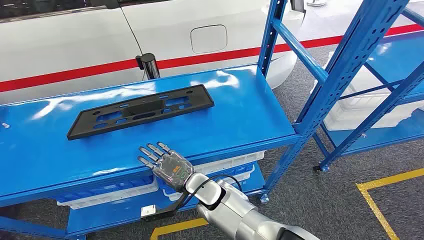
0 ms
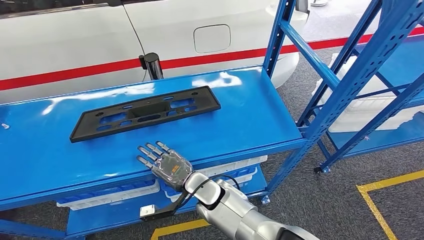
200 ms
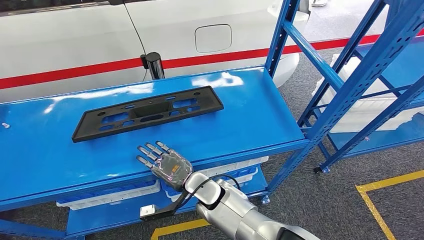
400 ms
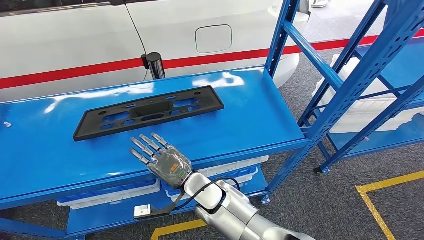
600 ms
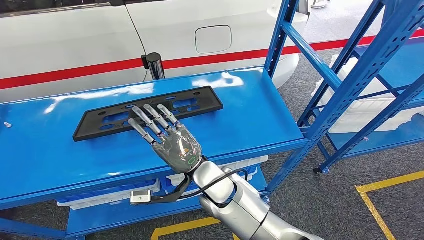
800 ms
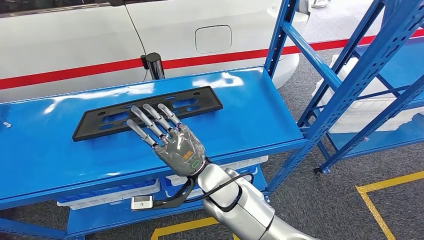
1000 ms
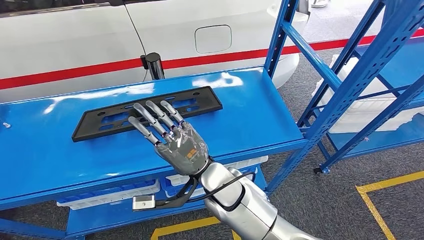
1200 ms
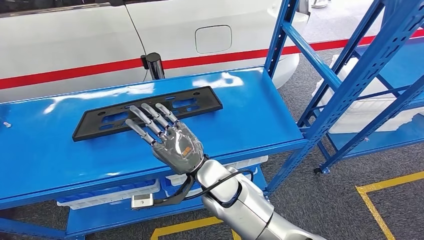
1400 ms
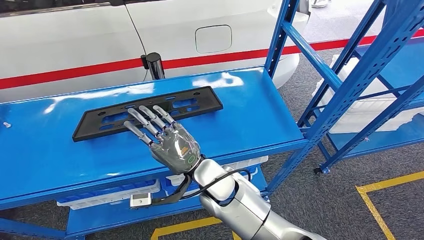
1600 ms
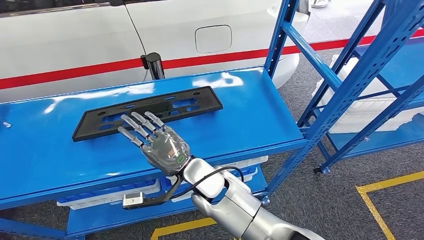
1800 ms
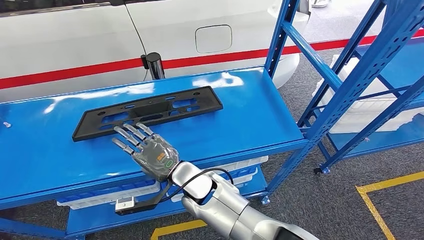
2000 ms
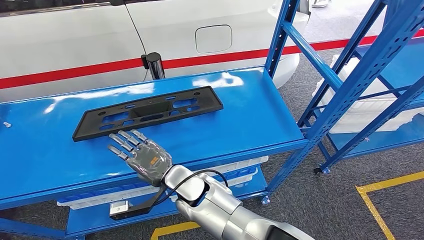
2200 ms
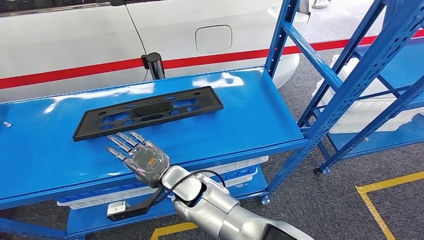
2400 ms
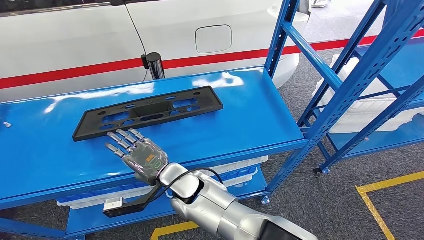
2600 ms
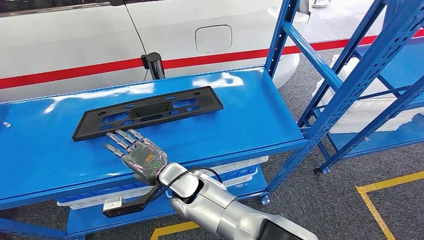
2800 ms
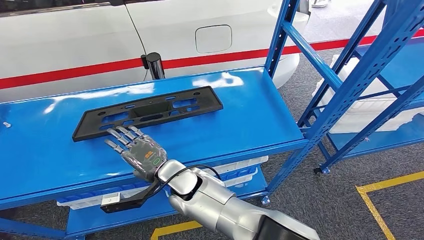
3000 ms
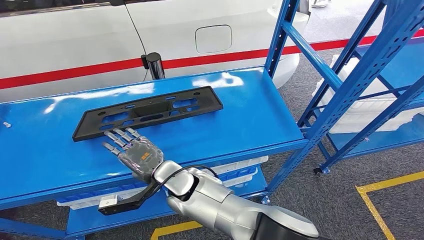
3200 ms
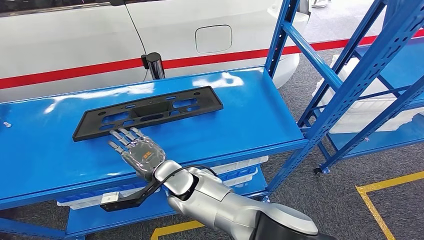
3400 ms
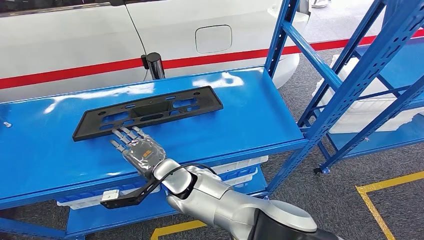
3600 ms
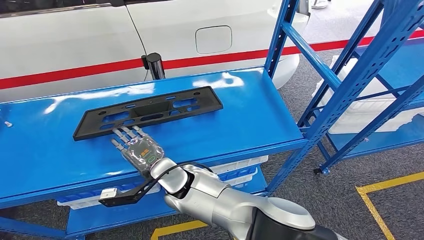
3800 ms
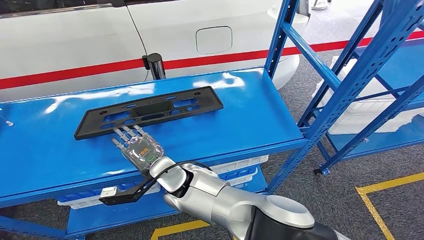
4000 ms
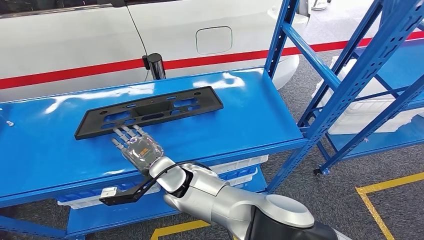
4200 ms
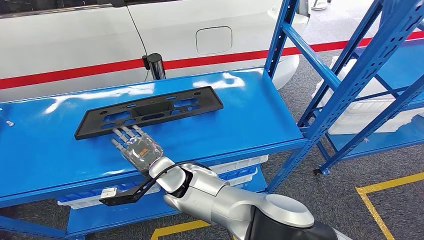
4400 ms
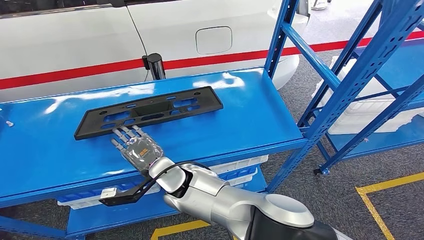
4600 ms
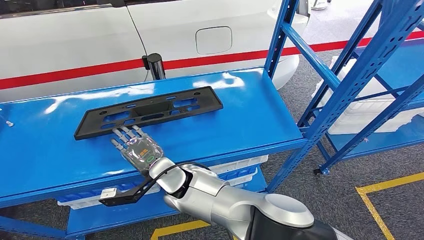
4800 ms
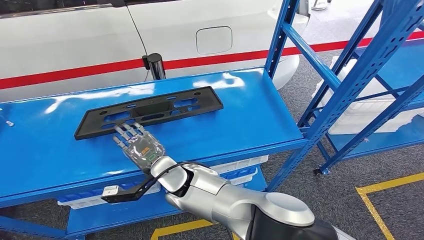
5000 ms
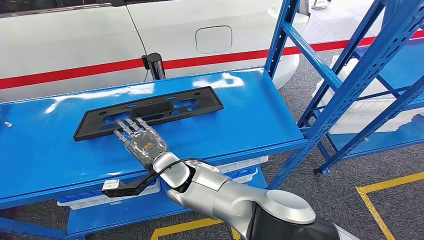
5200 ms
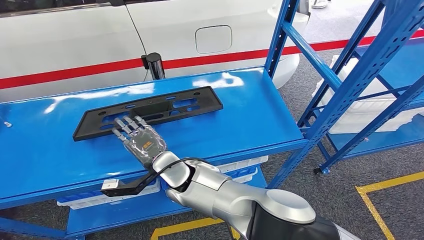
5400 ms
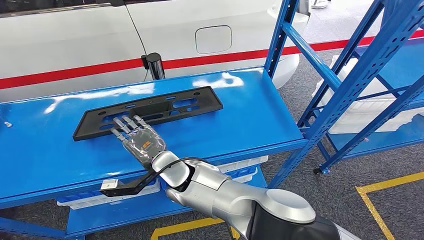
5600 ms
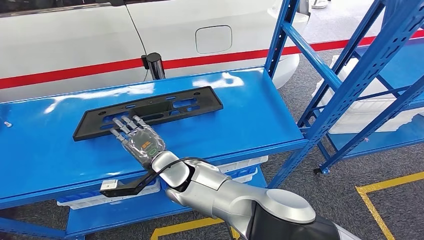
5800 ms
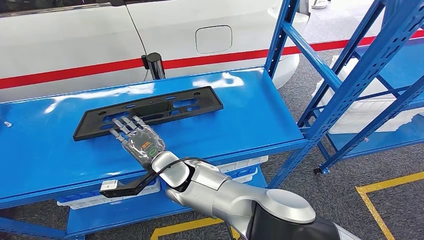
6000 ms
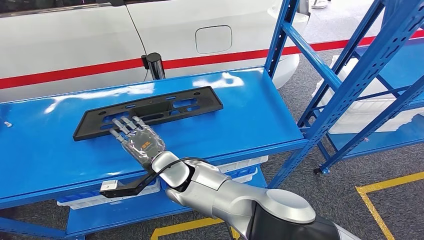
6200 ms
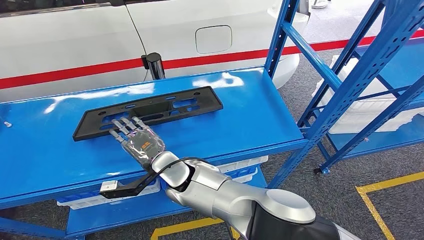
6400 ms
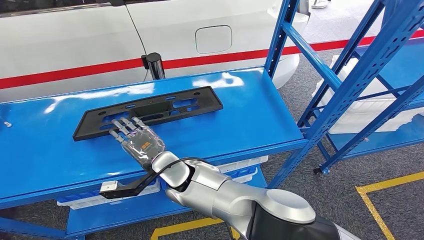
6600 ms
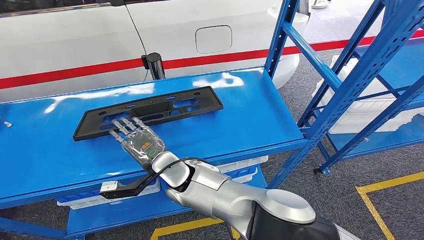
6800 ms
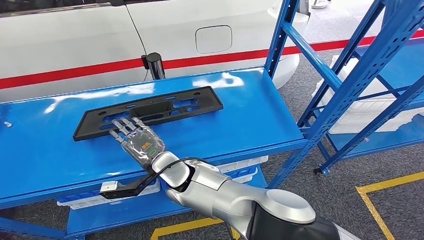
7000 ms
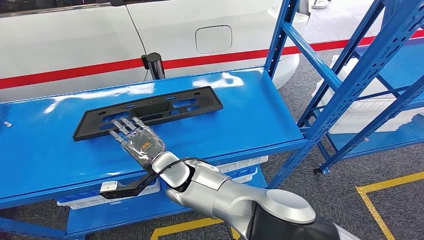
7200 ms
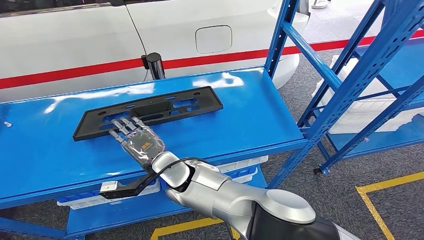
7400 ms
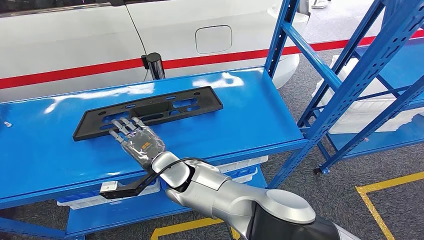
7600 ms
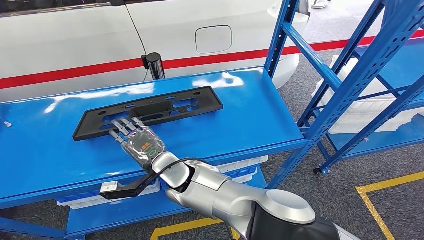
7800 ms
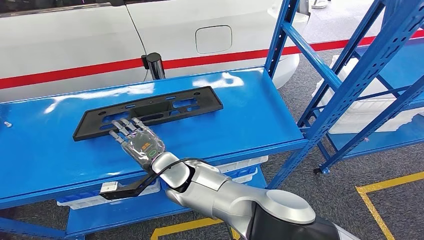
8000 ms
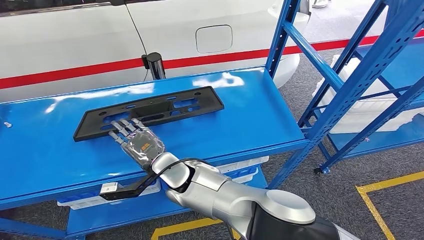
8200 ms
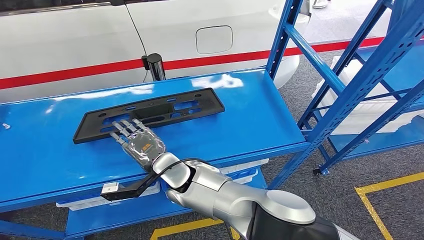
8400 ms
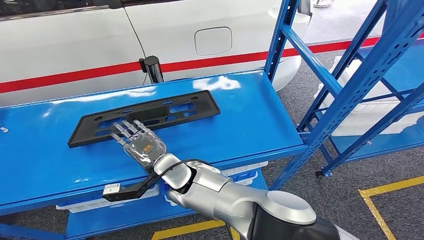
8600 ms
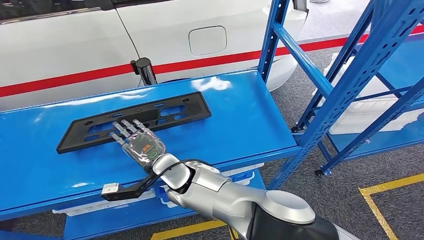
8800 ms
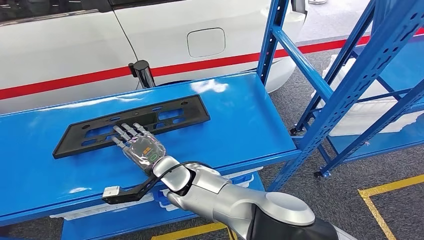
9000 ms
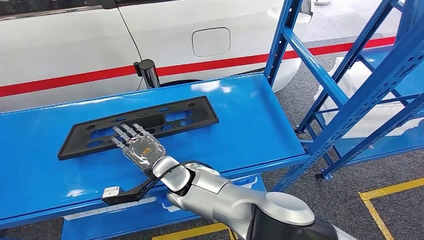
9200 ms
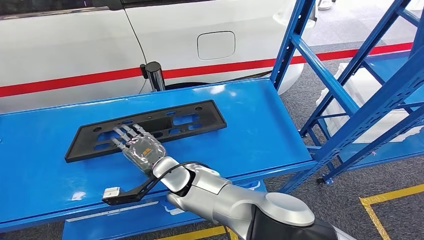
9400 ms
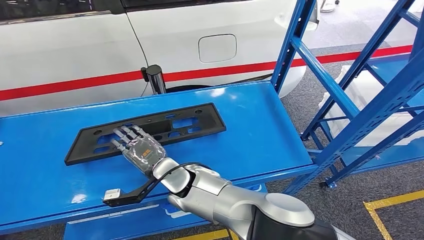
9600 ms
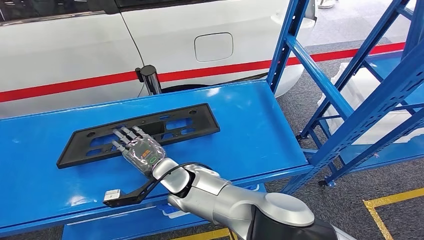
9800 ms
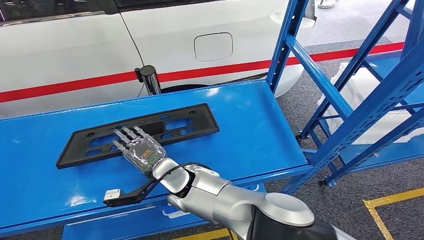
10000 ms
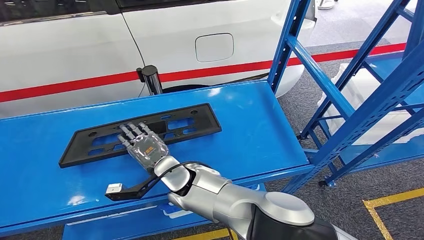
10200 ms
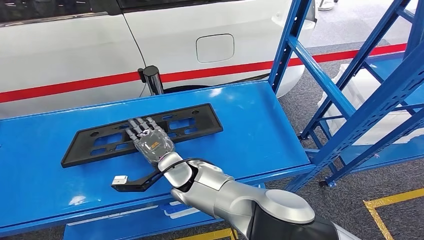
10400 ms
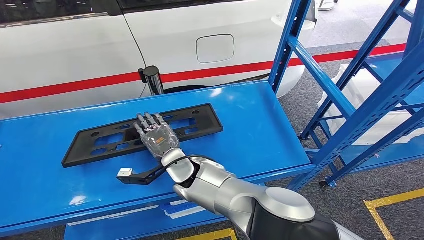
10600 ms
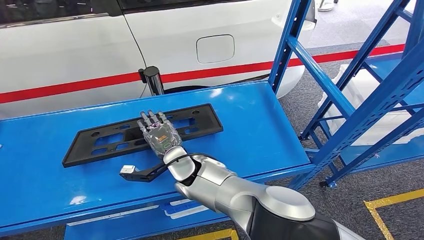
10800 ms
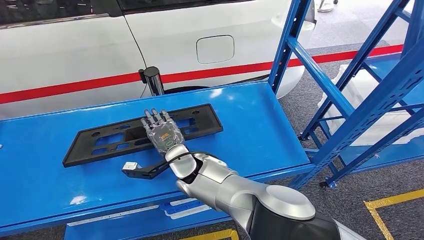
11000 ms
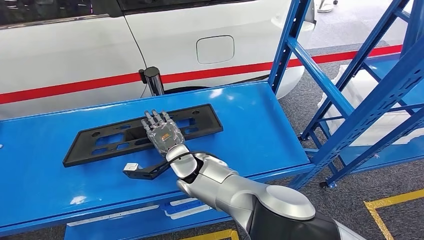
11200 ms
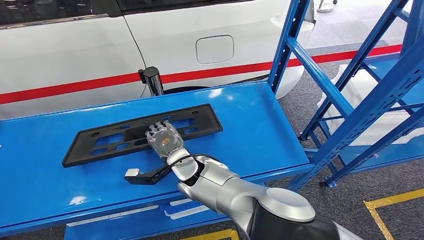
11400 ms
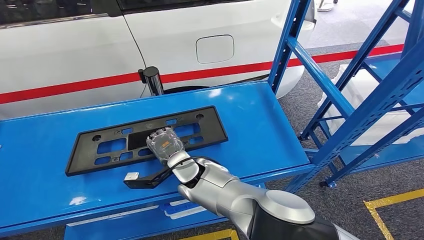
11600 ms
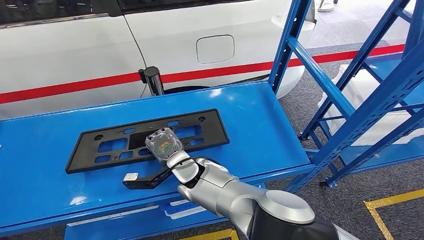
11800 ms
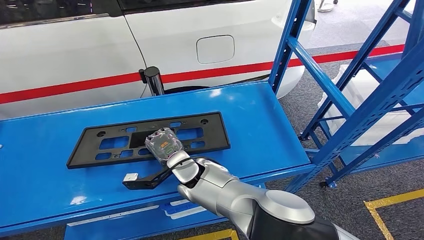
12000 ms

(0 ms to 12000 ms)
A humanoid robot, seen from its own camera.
1600 ms - 3000 ms: The right hand moves to the left, some 10 cm.
3000 ms - 6000 ms: The hands move only a little.
6000 ms - 7600 ms: The two hands keep their place.
10400 ms - 12000 ms: The hands make only small movements.

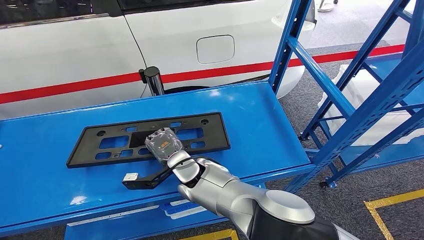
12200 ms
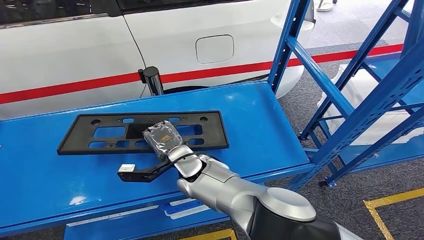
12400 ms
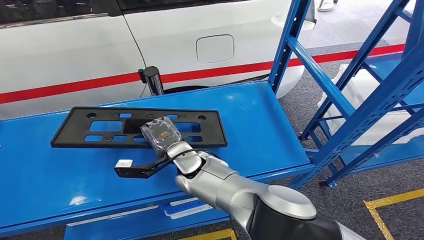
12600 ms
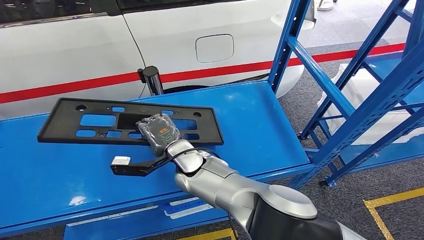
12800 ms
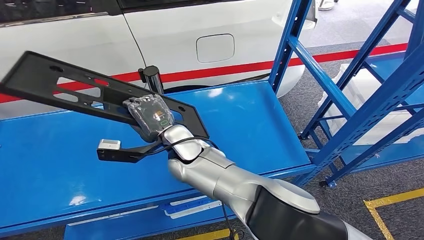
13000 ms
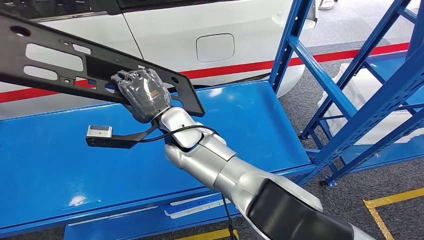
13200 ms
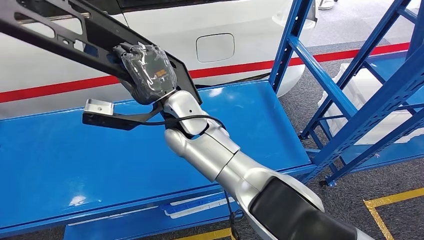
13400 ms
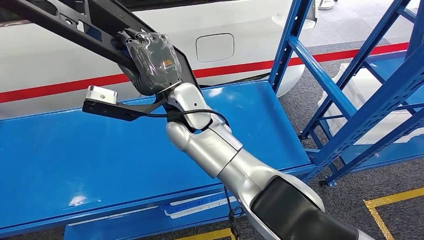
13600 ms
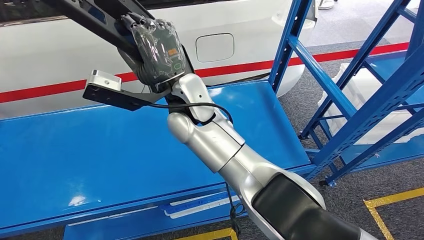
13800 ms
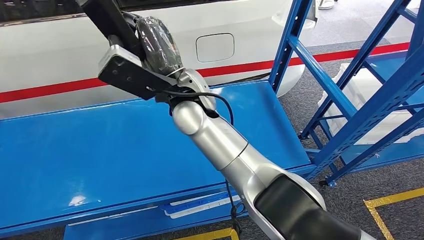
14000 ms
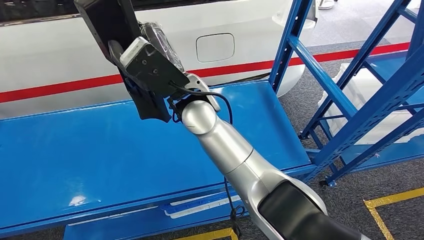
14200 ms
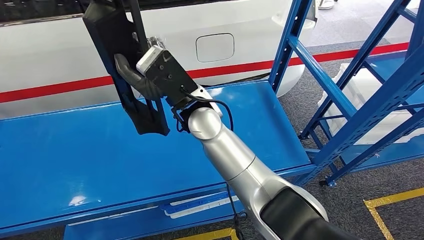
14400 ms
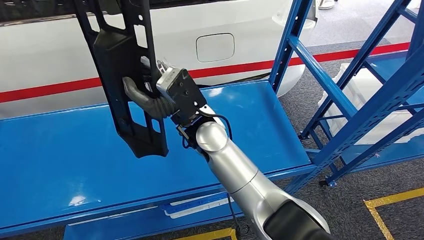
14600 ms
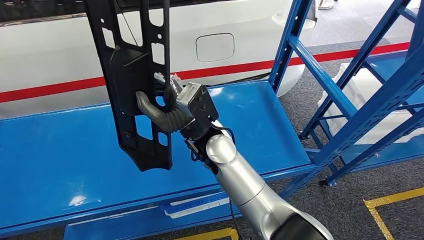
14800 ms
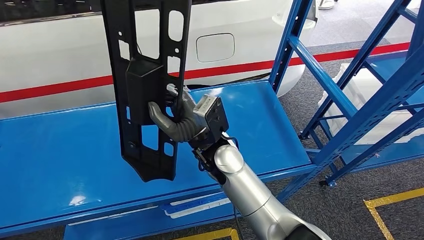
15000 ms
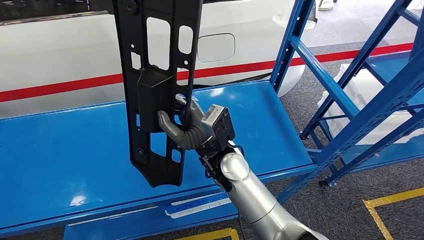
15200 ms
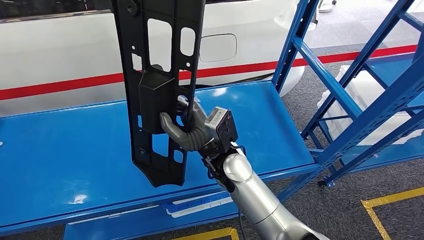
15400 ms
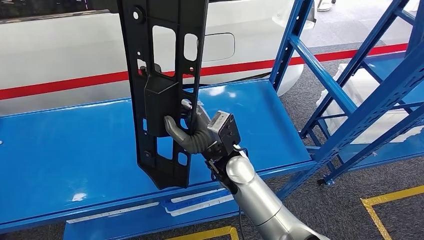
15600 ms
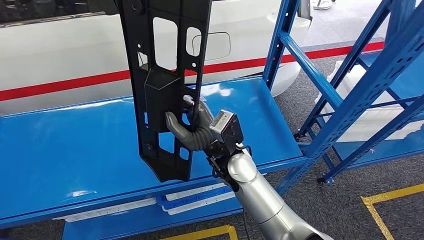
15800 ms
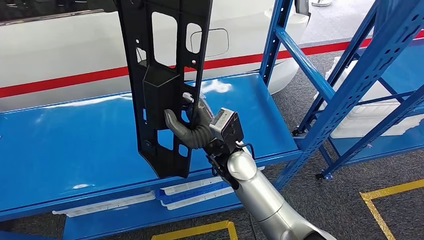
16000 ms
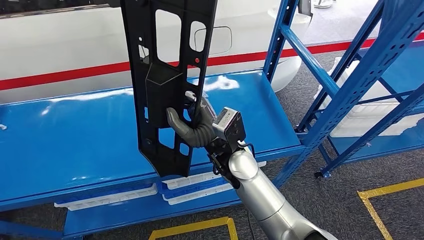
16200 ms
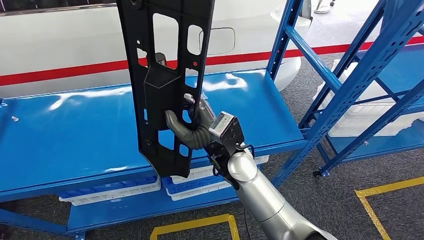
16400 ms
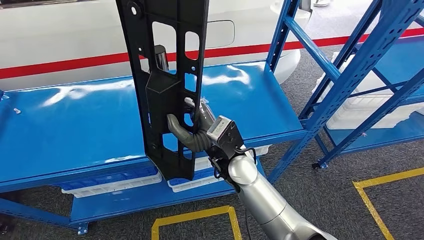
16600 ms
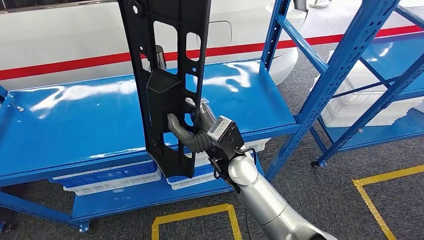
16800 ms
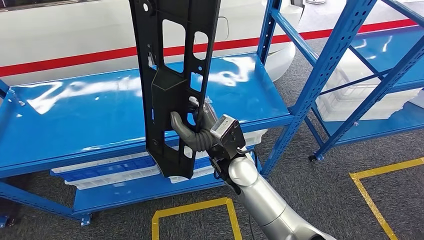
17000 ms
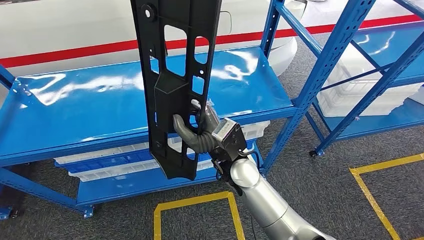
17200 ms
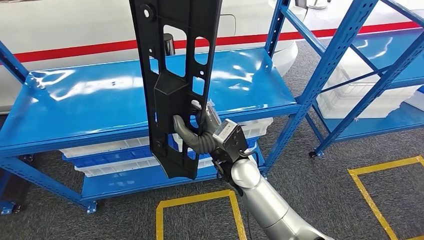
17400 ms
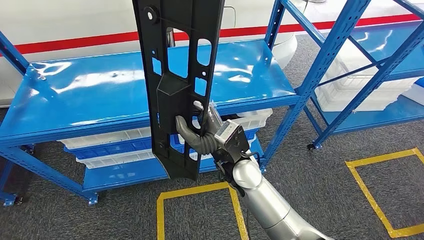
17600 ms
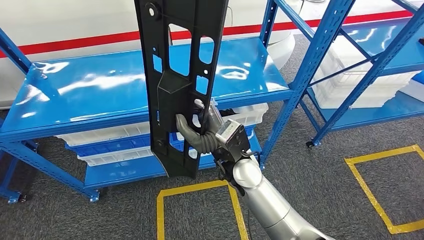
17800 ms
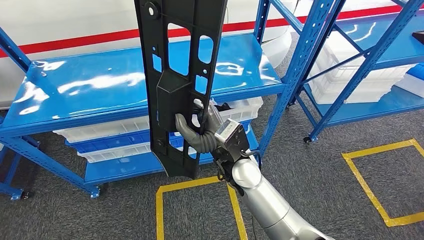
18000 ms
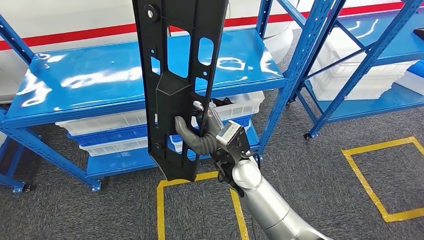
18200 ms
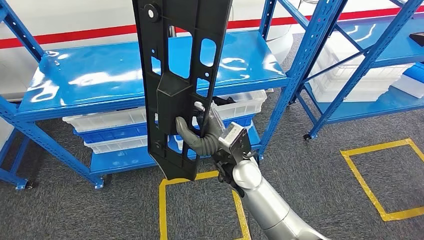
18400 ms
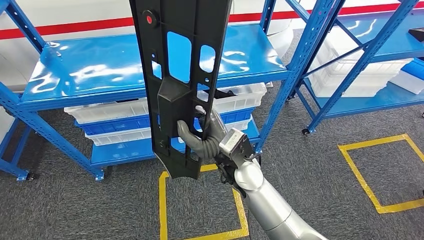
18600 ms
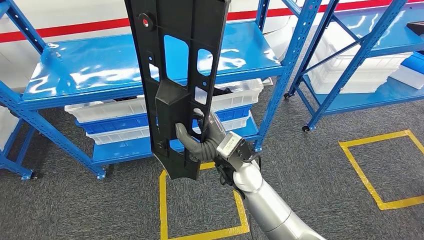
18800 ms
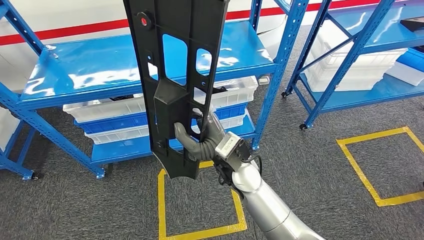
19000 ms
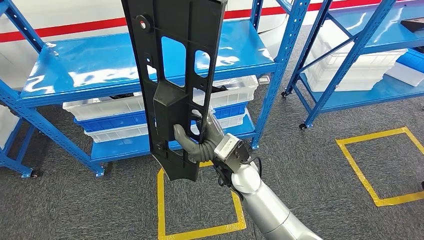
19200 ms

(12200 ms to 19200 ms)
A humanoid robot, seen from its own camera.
Step, 12200 ms - 17800 ms: Pick up the large material from the shelf.
